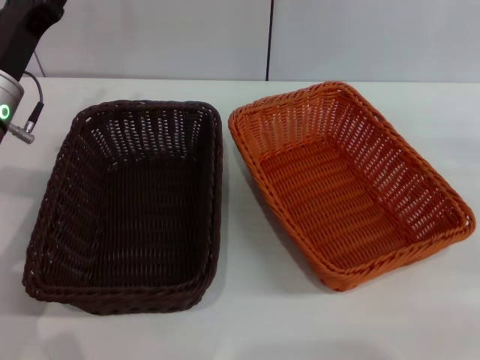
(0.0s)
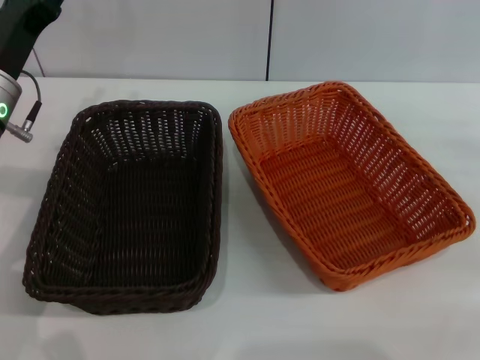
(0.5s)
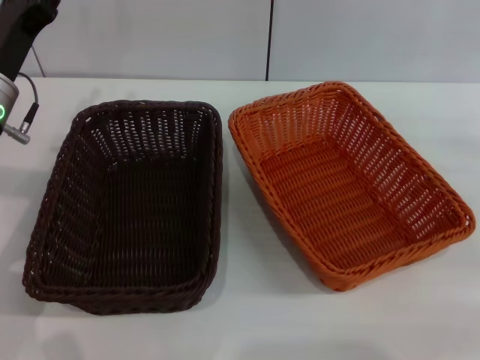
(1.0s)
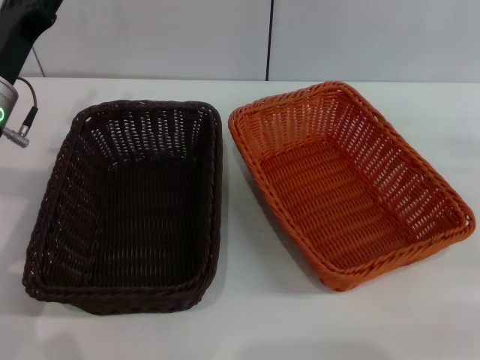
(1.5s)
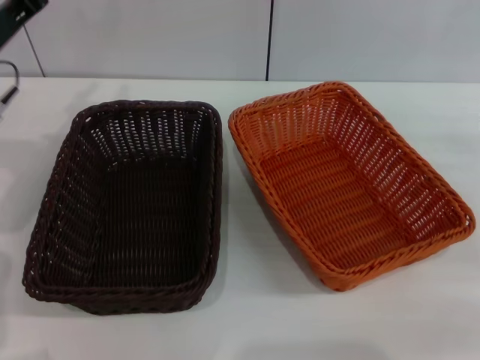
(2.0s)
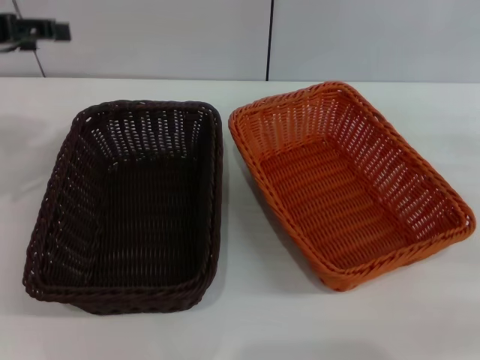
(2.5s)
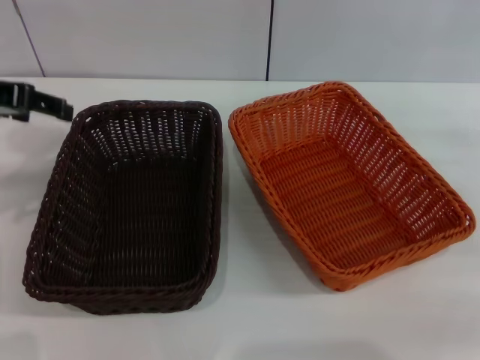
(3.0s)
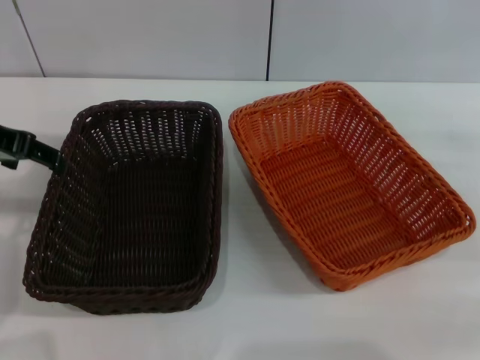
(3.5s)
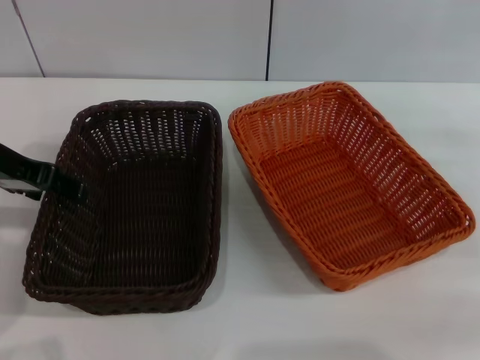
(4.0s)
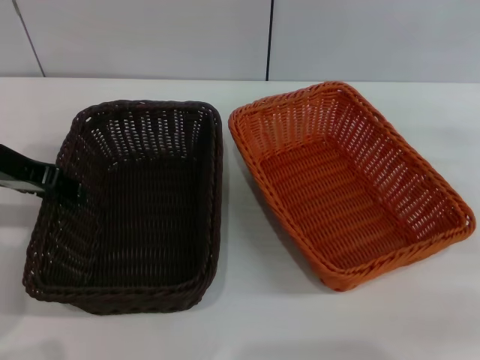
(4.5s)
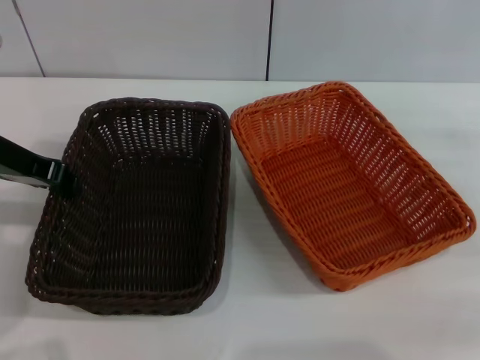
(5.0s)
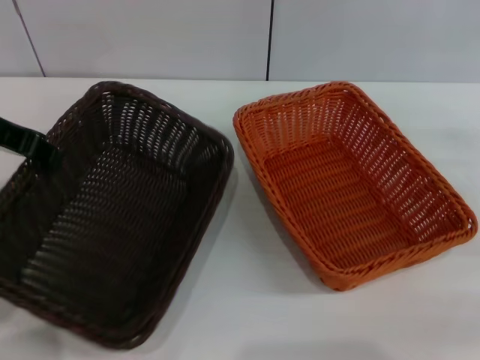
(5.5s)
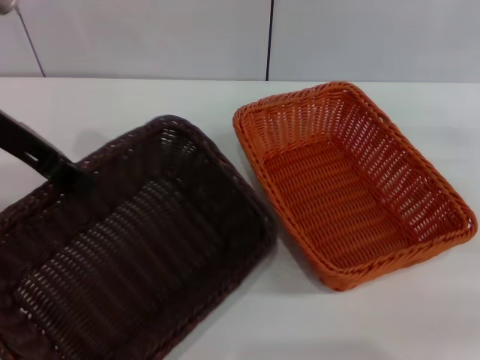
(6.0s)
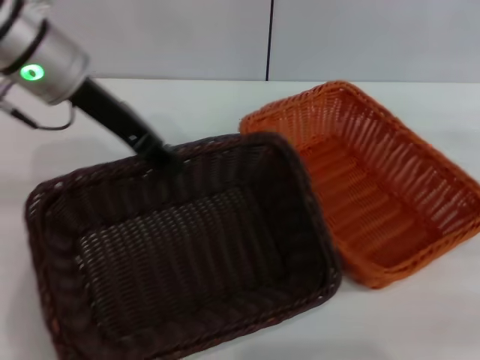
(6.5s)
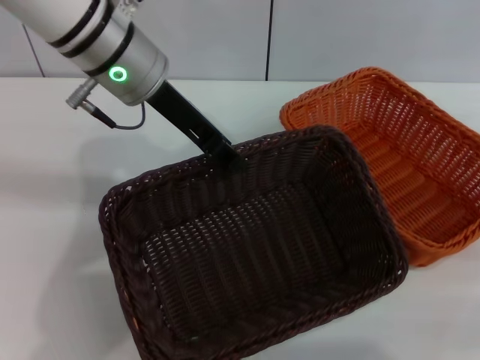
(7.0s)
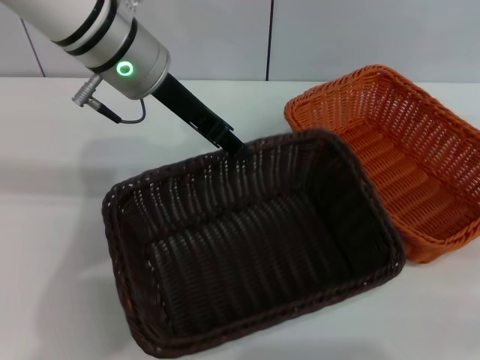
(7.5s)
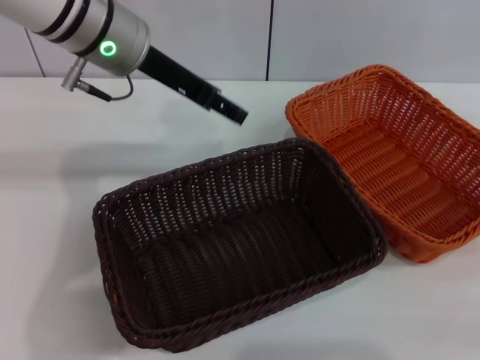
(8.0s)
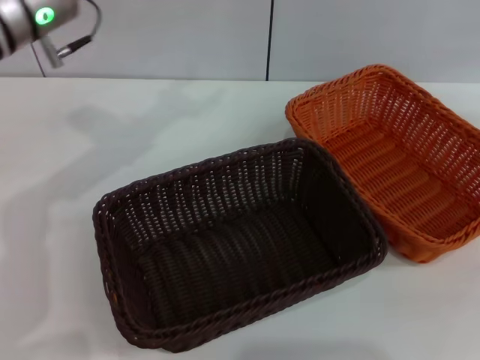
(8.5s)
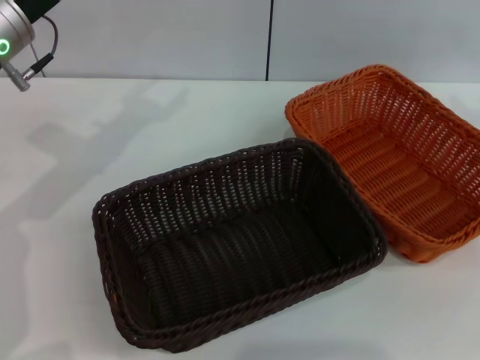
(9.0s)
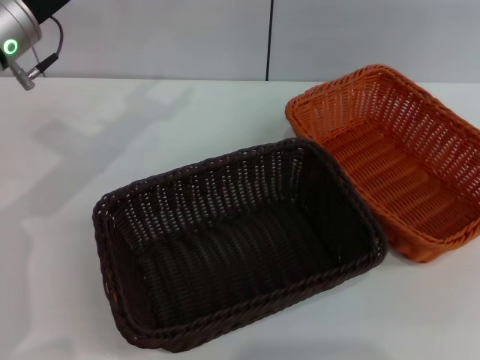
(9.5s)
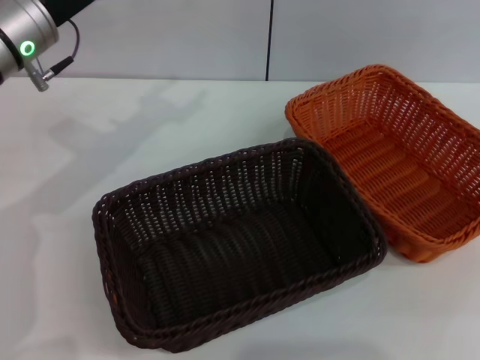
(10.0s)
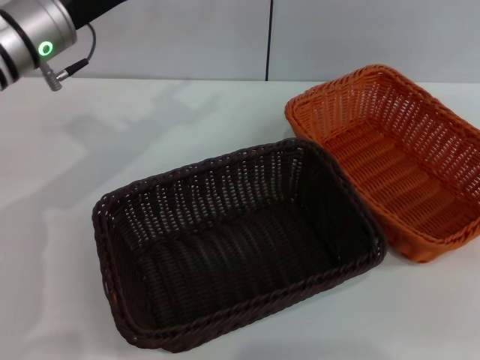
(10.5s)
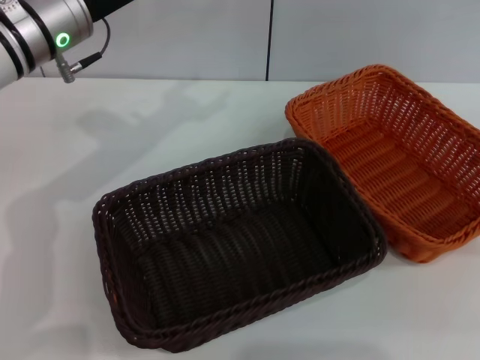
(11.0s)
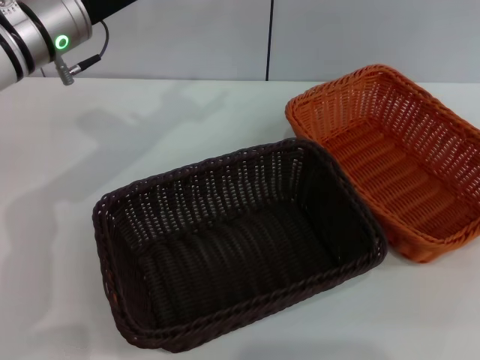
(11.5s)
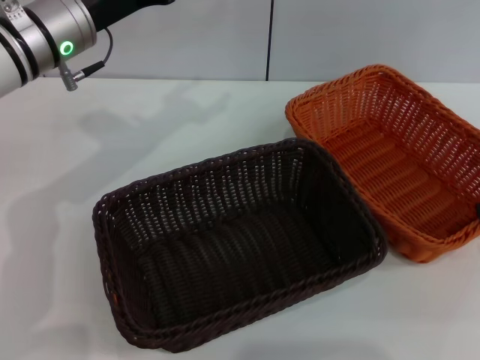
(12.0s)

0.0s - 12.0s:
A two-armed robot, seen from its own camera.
Step, 0.0s - 5.5s: Pick up the dark basket with the left gripper.
Step, 6.0s - 7.5s: Place the dark basket in the center of view with the left gripper.
0.0s - 2.0s: The left gripper changes place by some 5 cm.
4.0s - 6.0s: The left gripper travels upward by some 5 cm, and closes.
6.0s - 8.0s: The left gripper goes roughly 15 cm to the right and forward, and opens up.
8.0s - 10.0s: The right gripper goes some 15 cm upward, while the left gripper goes roughly 10 cm to the left.

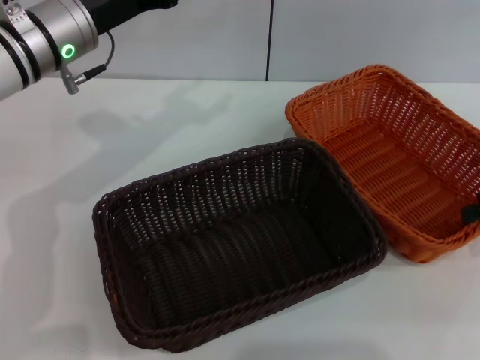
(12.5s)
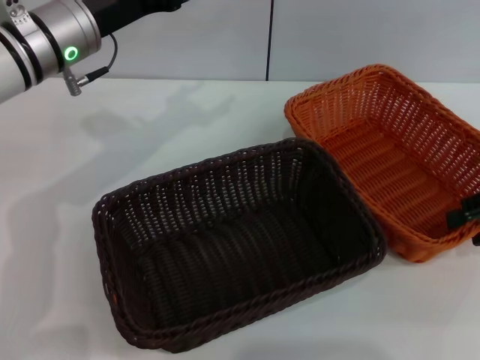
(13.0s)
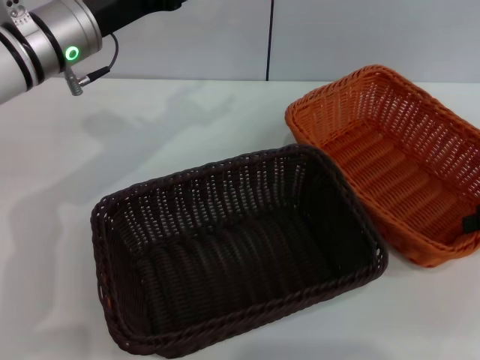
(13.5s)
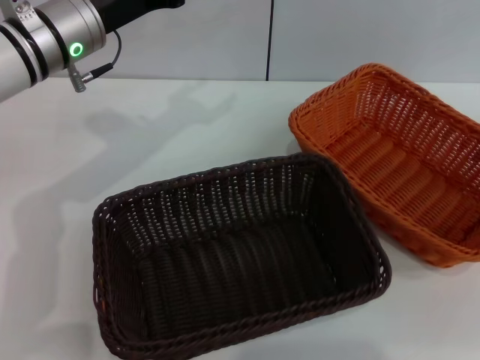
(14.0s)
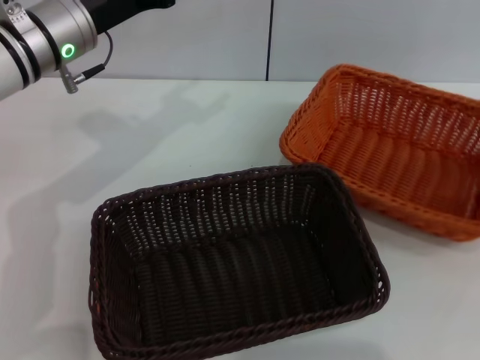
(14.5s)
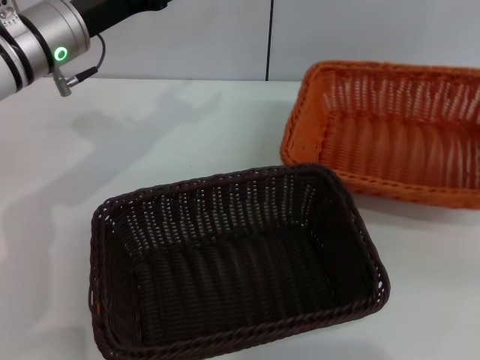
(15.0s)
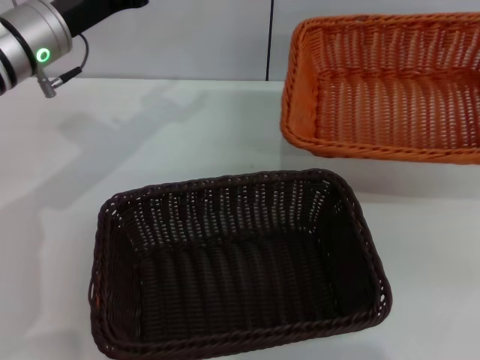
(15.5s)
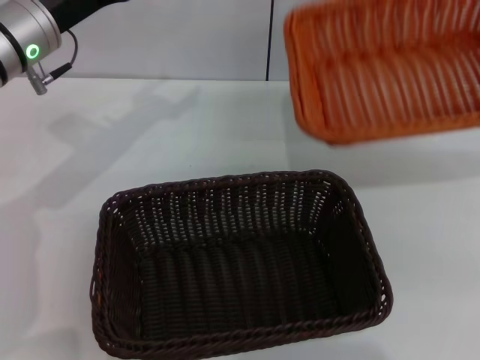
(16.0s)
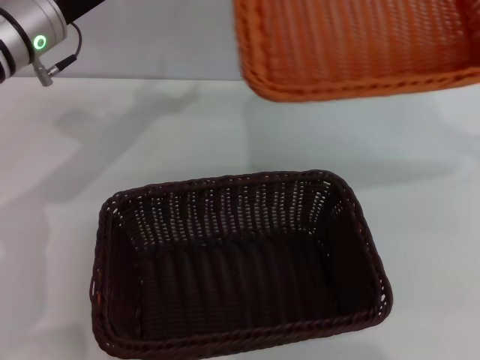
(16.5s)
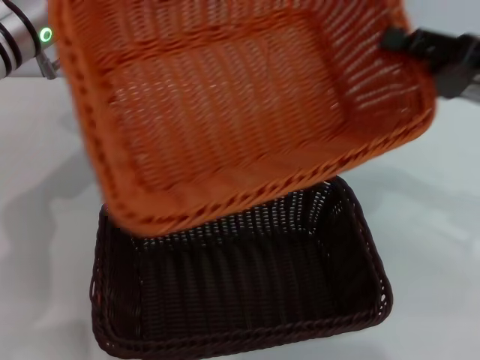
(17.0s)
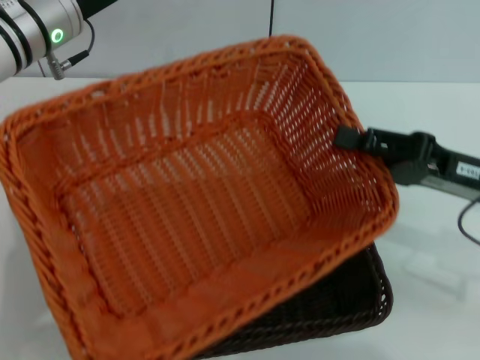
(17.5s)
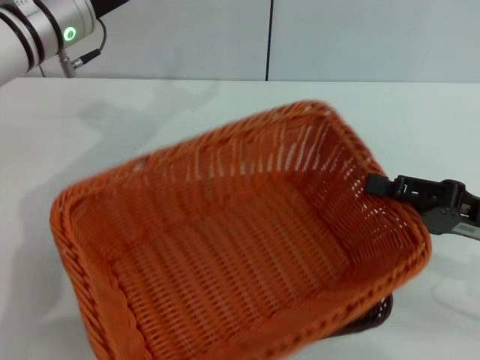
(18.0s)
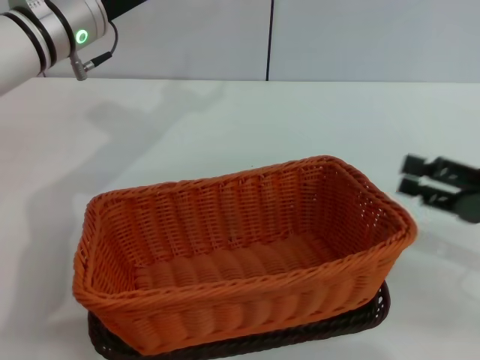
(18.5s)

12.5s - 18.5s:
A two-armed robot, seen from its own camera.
Step, 12.5s - 15.0s: Pick up the light basket with the right gripper.
Step, 15.5s - 18.0s: Place the light basket on the dark basket with the right gripper.
12.5s - 14.5s: The right gripper closes.
14.5s - 16.5s: The right gripper goes some 5 cm upward.
16.5s - 18.5s: The right gripper heads downward and backward, covering some 15 cm, and opens its fingers.

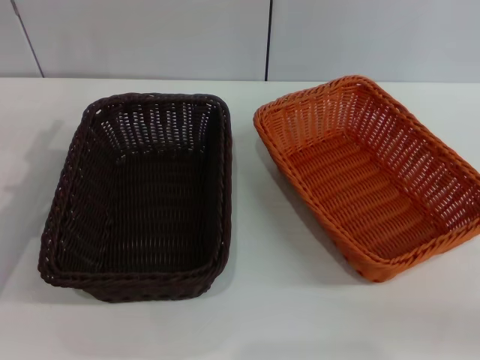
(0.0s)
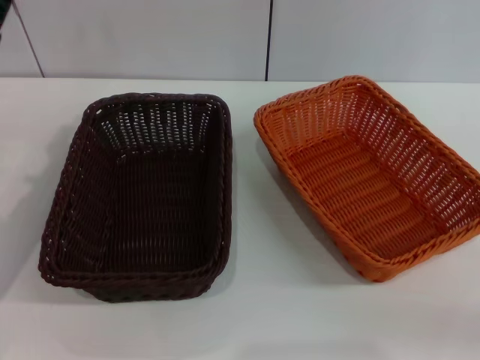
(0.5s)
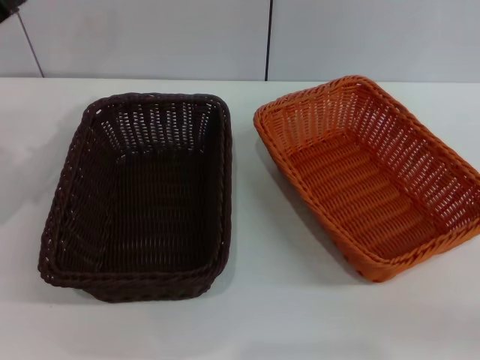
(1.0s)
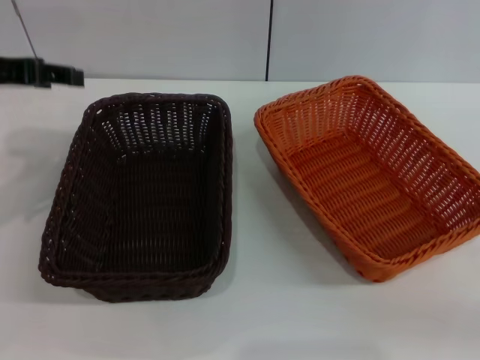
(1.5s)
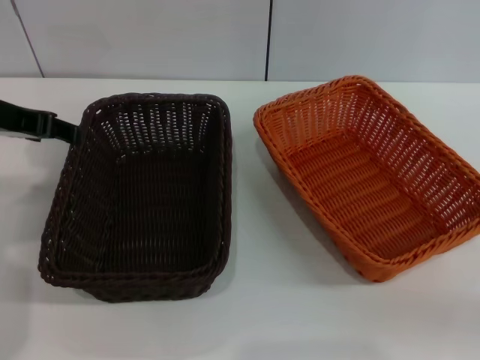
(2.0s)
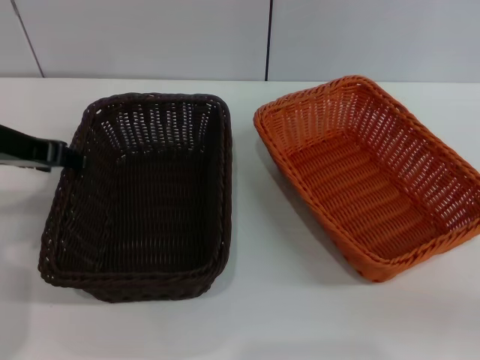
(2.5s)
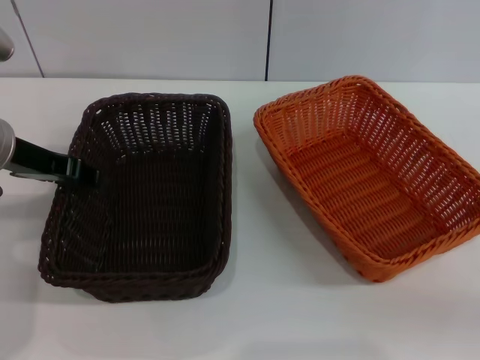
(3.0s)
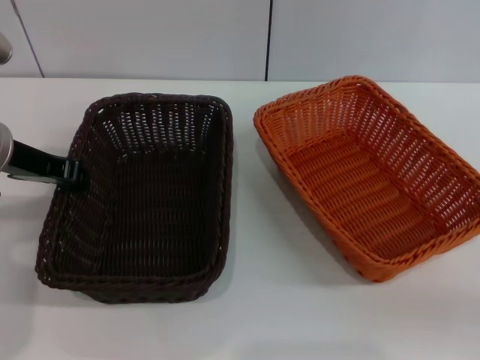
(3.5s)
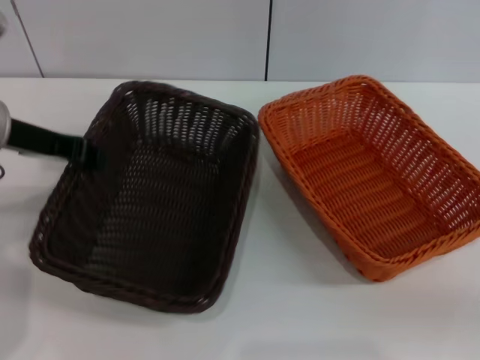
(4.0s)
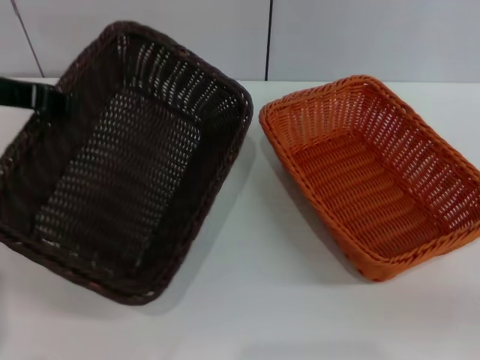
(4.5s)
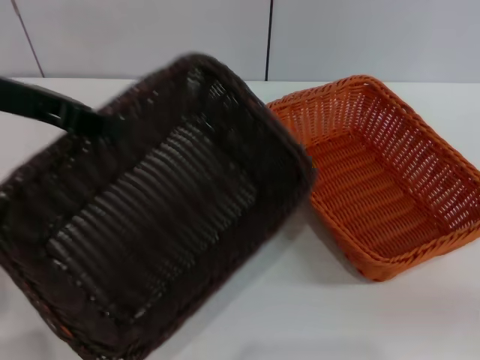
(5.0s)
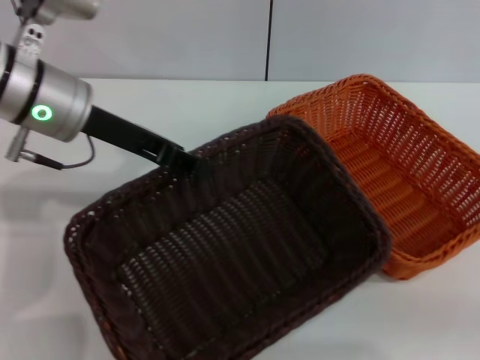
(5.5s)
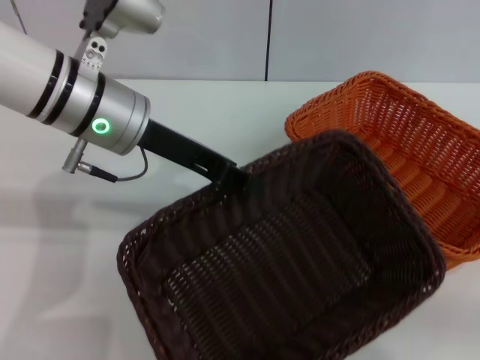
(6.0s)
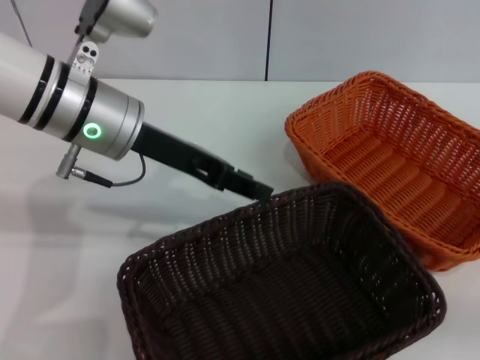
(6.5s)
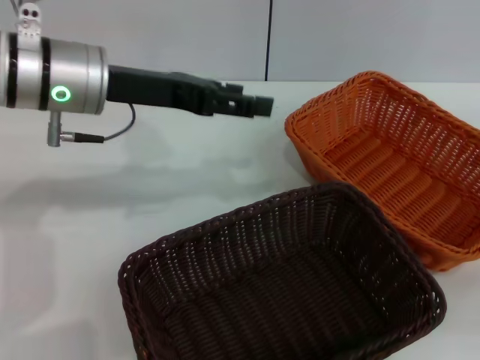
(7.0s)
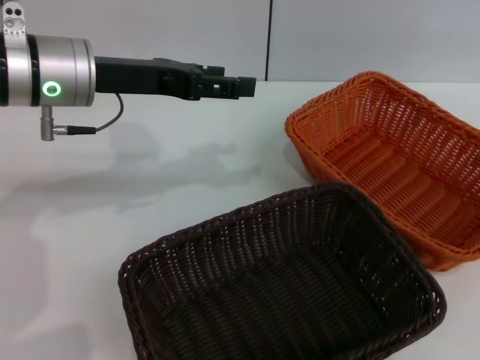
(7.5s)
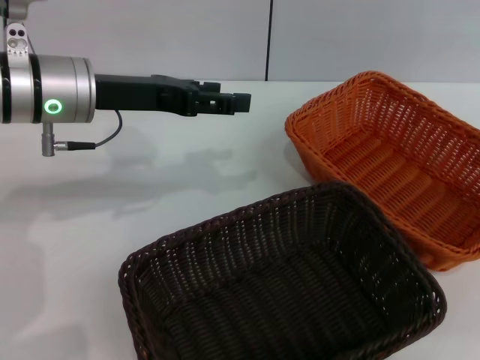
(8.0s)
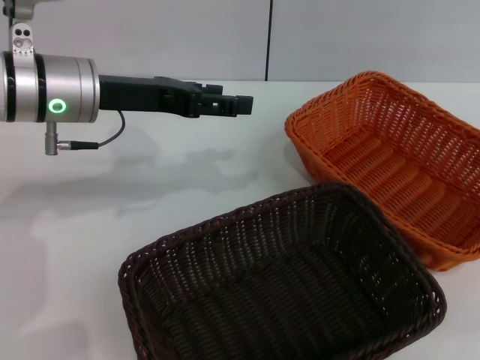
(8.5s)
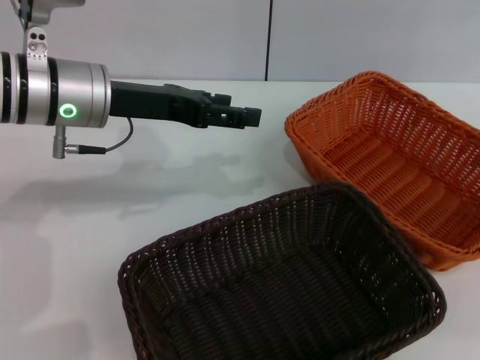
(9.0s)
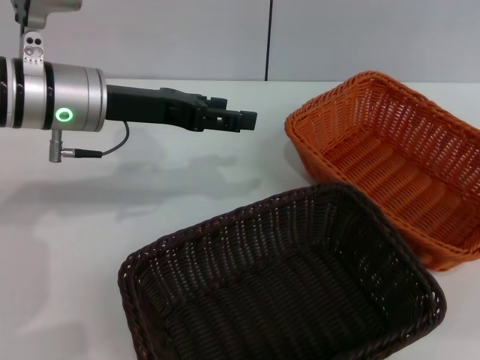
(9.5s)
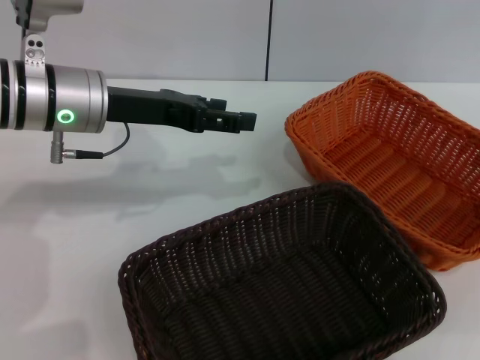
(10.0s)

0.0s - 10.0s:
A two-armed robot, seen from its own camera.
Step, 0.0s - 4.0s: Pick up the dark basket with the left gripper.
Step, 4.5s - 6.0s: Place the dark basket in the center of view with the left gripper.
0.0s - 2.0s: The left gripper shifts roughly 10 cm upward.
2.0s - 4.0s: The left gripper closes its fingers.
4.0s - 6.0s: The left gripper goes about 10 cm to the right.
6.0s - 8.0s: The left gripper opens. The right gripper heads upward and forward, covering some 20 cm.
8.0s - 10.0s: The right gripper moves downward, roughly 5 cm.
